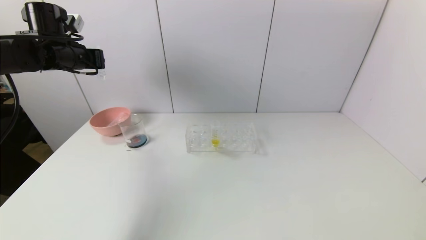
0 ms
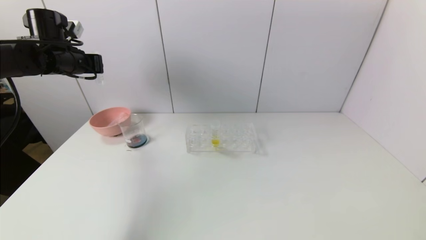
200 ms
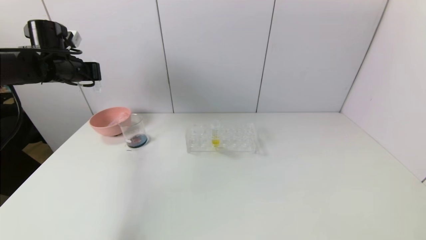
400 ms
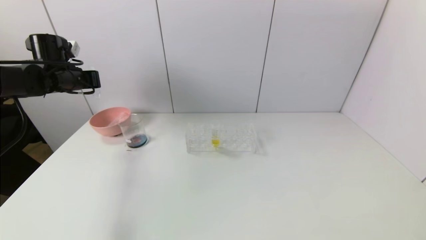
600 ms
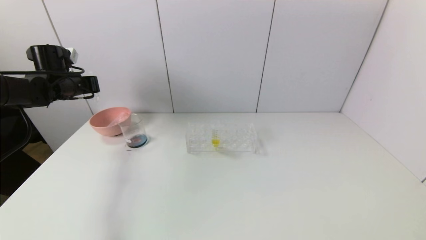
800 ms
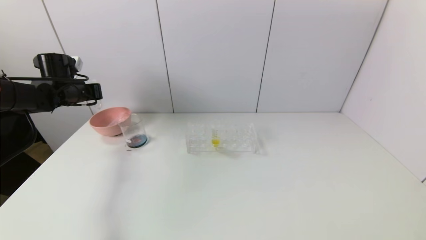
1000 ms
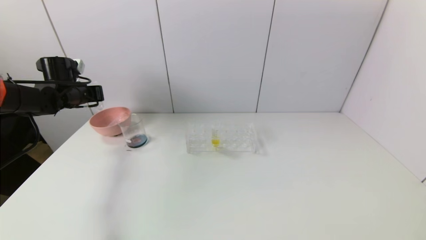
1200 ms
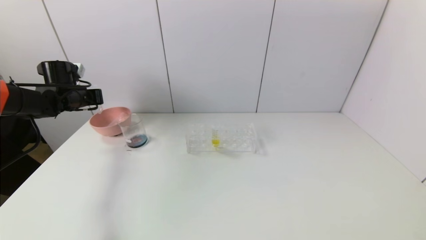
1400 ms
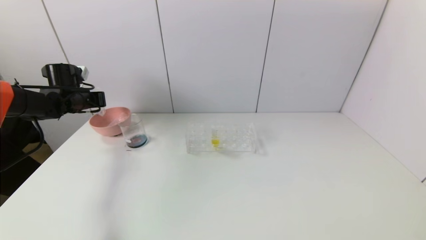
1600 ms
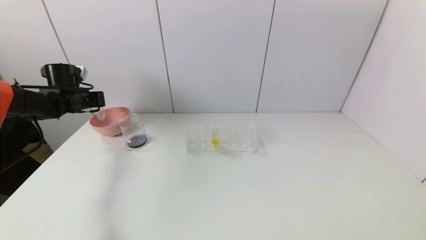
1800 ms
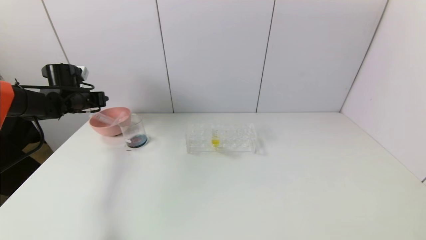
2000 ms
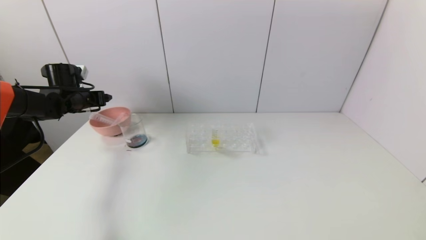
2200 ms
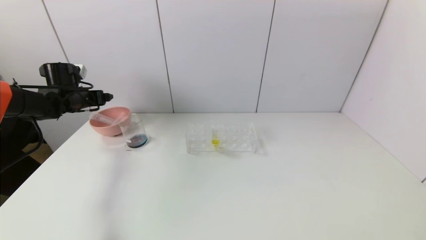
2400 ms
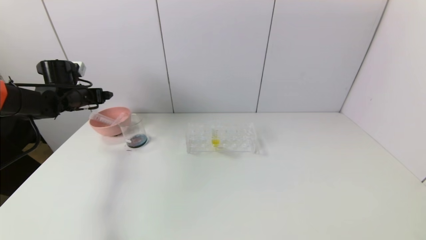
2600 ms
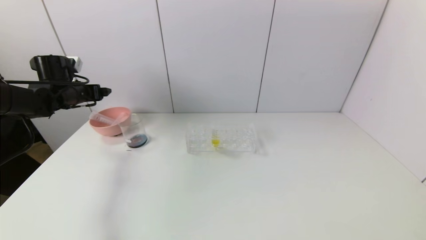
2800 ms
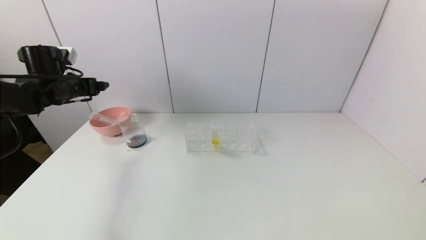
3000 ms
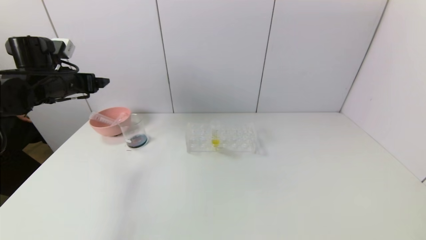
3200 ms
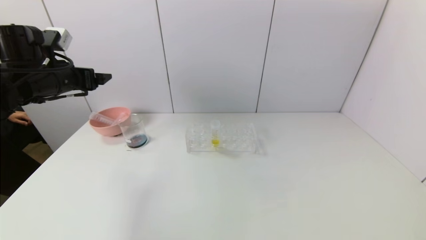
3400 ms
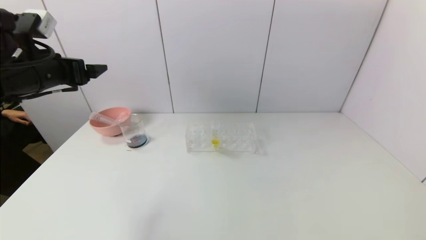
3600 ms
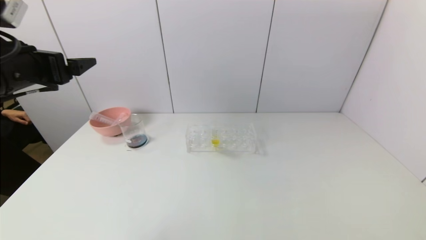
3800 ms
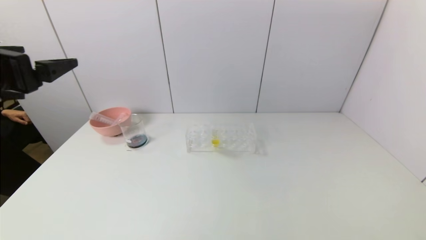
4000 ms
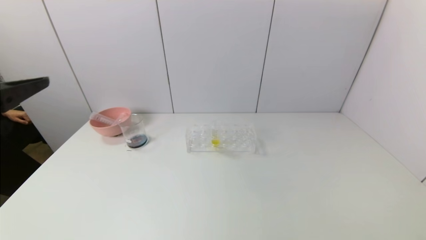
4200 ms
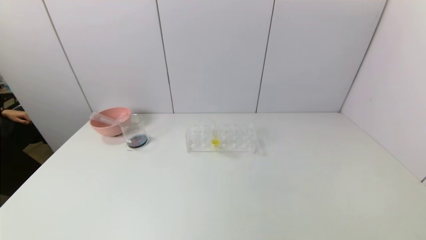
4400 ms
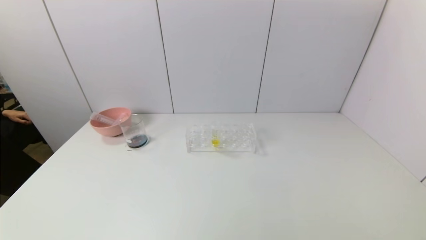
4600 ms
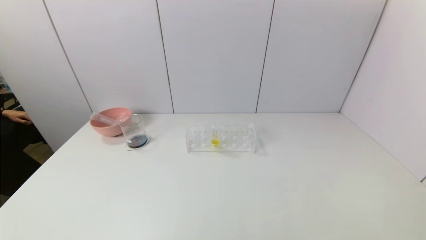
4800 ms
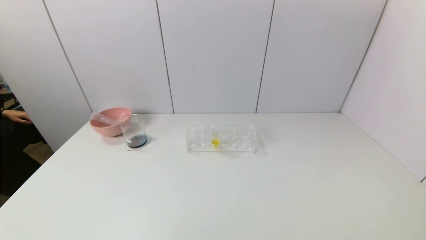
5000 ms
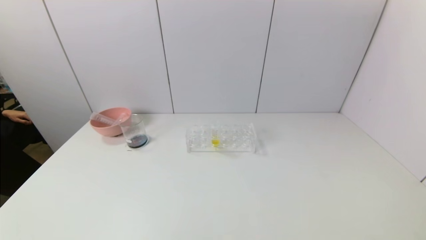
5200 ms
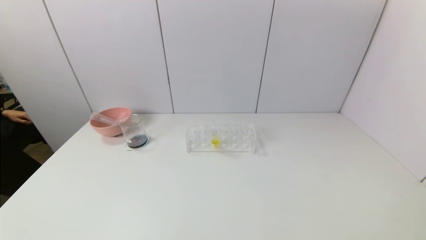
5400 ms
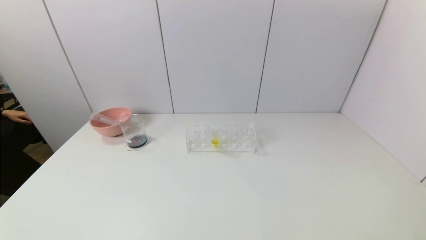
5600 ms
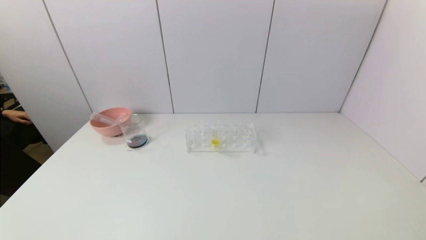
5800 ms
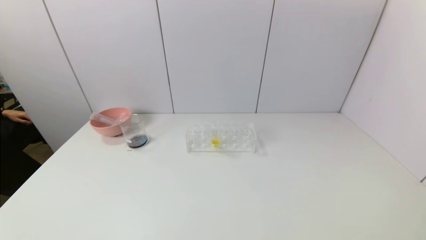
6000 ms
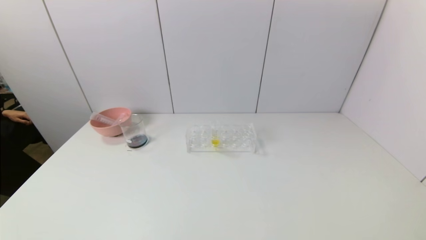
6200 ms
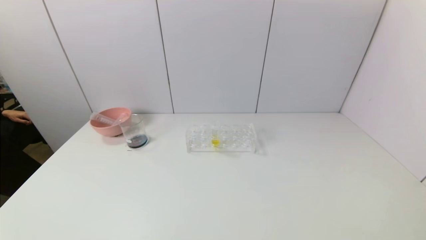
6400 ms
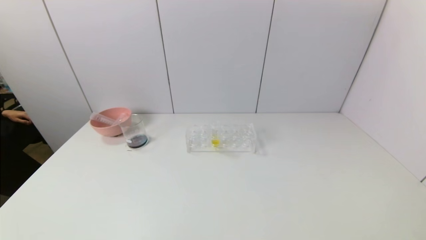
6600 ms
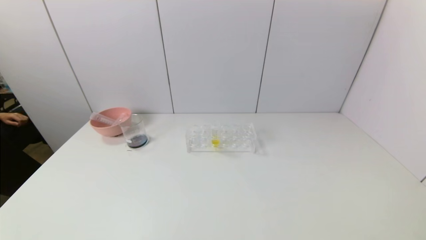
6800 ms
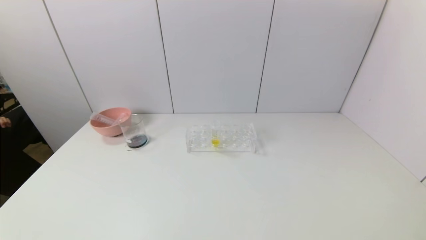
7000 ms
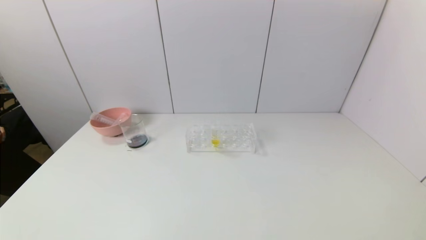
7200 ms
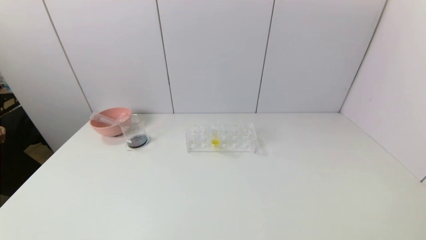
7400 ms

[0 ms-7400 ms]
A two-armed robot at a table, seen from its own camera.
Task of the whole recording: pick up the test tube with red pigment and the test tube with blue pigment by grippers and pour them into the container.
Step, 0 ms to 2200 ms: Place the test tube into the bowl with the left gripper.
0 ms to 1400 ms: The left gripper is displaced downward and to the left by about 15 cm.
1400 ms to 3000 ms: The left gripper goes roughly 5 cm backward and upward, and opens its fingers.
3000 ms to 4400 ms: The left gripper shifts about 35 cm backward.
6000 ms to 7400 ms: Both grippers stay put.
